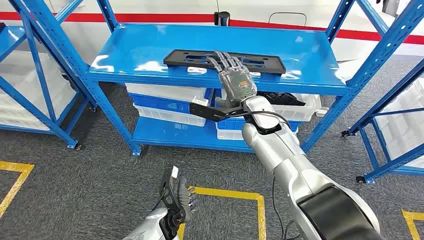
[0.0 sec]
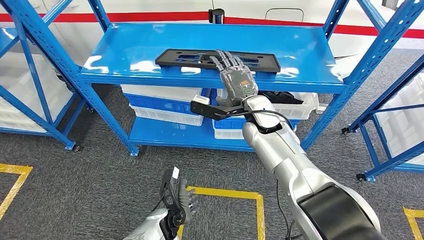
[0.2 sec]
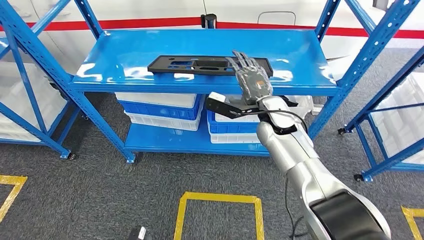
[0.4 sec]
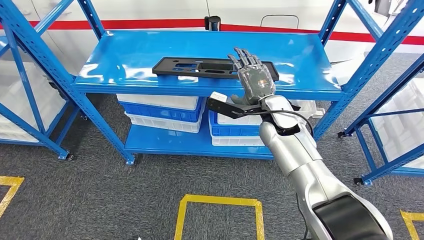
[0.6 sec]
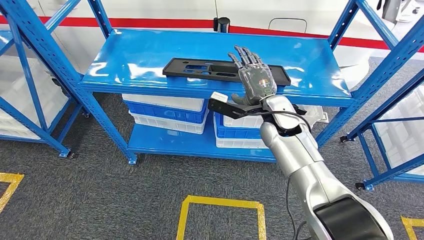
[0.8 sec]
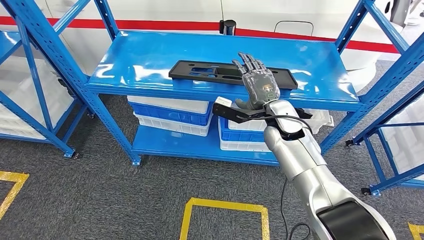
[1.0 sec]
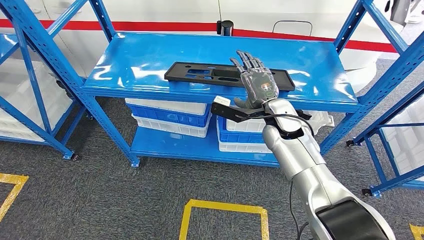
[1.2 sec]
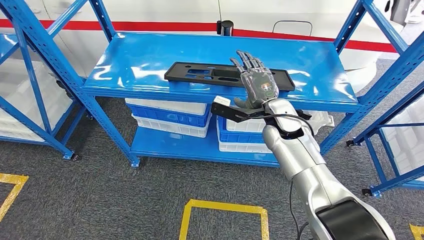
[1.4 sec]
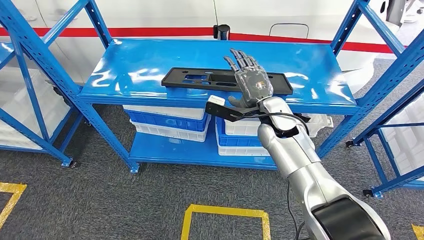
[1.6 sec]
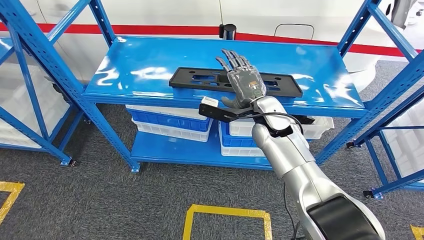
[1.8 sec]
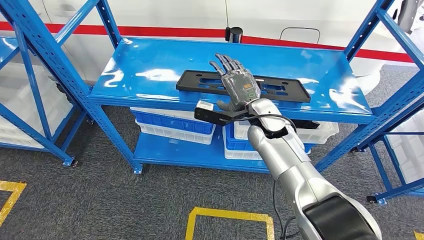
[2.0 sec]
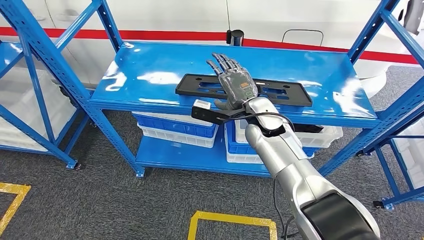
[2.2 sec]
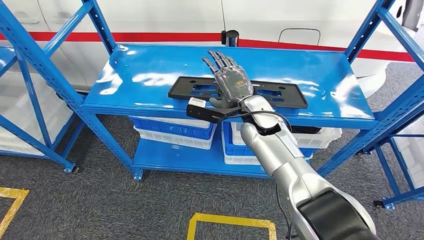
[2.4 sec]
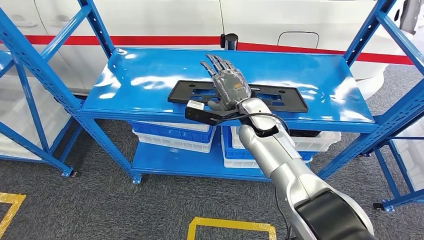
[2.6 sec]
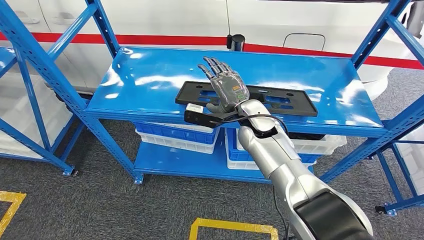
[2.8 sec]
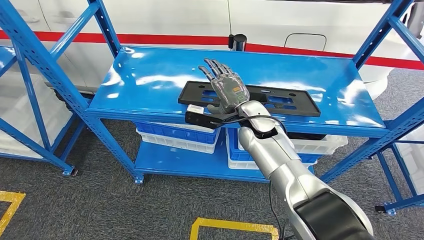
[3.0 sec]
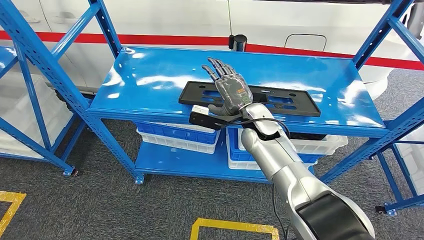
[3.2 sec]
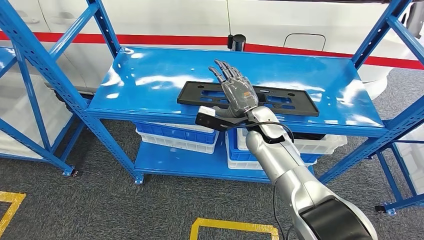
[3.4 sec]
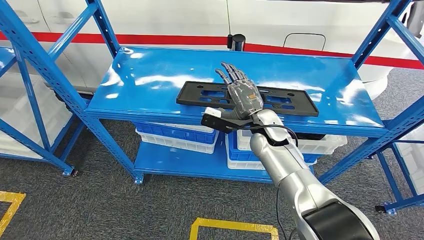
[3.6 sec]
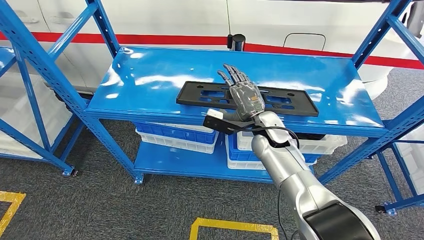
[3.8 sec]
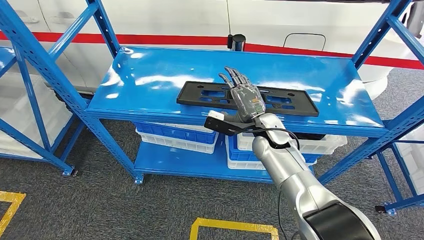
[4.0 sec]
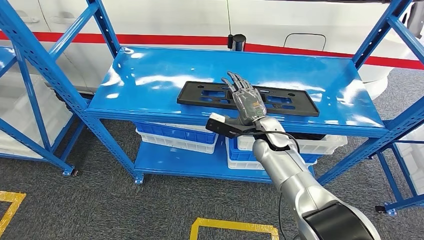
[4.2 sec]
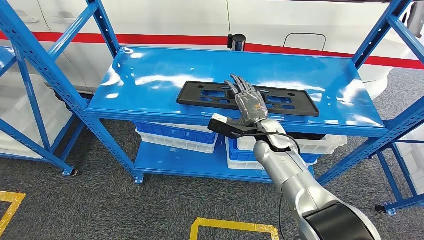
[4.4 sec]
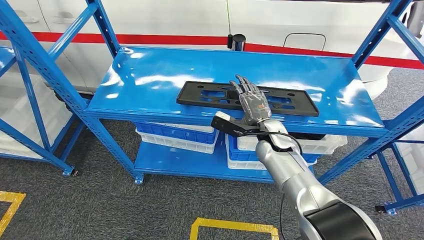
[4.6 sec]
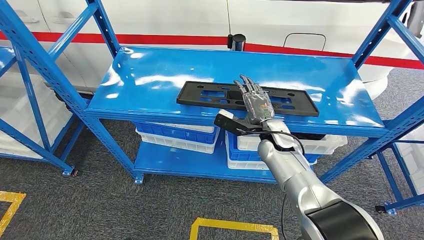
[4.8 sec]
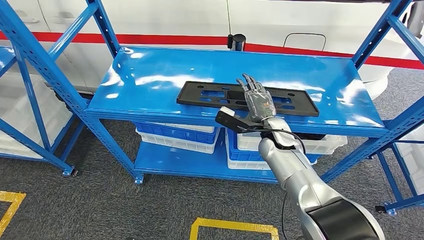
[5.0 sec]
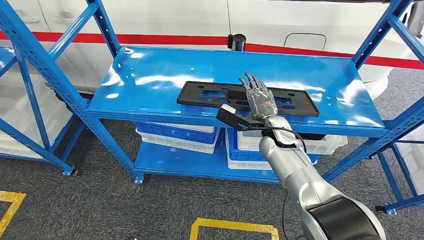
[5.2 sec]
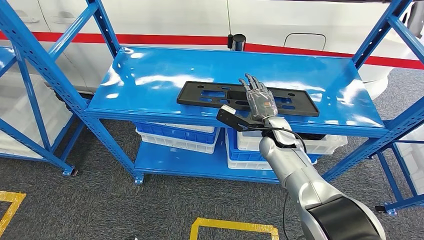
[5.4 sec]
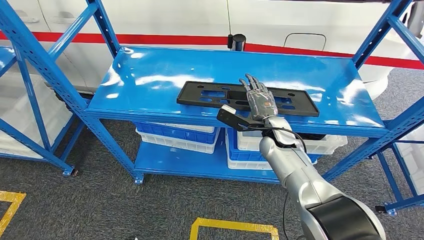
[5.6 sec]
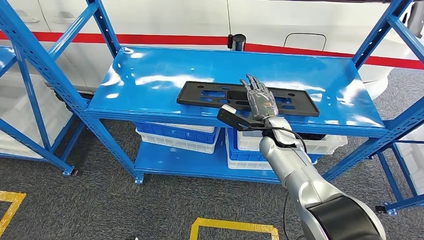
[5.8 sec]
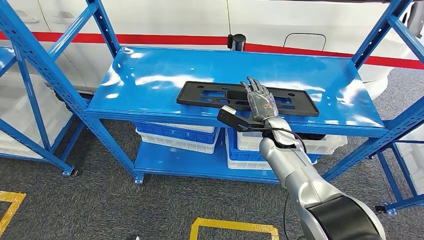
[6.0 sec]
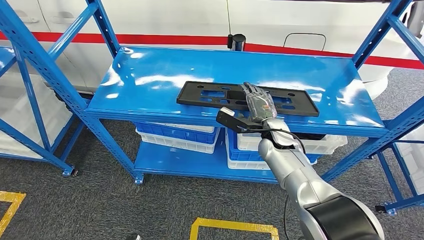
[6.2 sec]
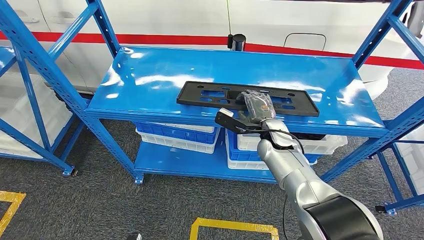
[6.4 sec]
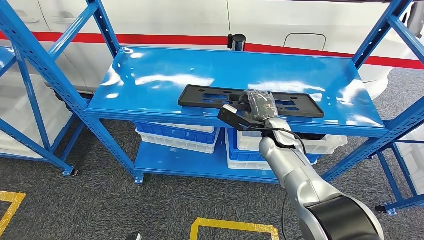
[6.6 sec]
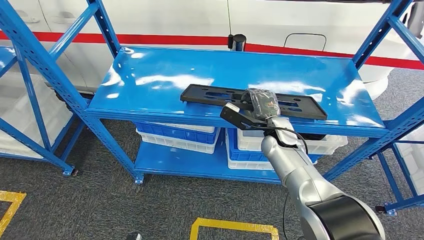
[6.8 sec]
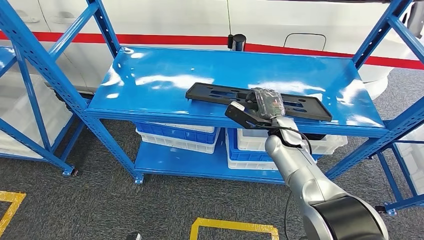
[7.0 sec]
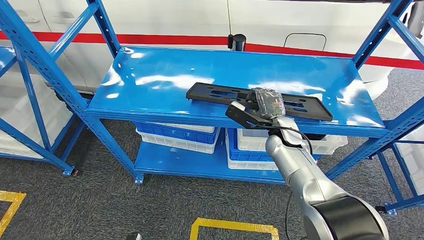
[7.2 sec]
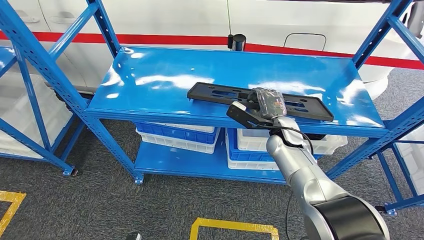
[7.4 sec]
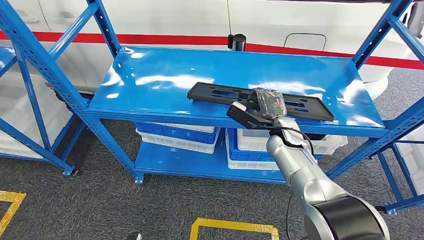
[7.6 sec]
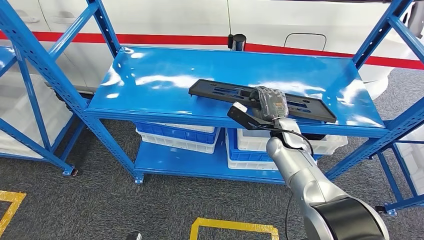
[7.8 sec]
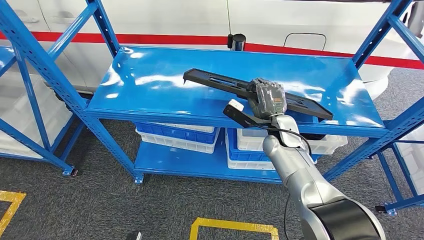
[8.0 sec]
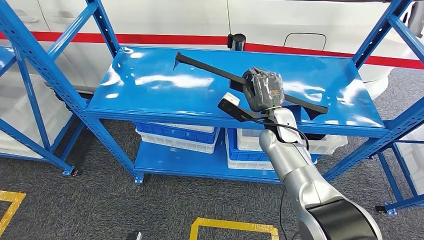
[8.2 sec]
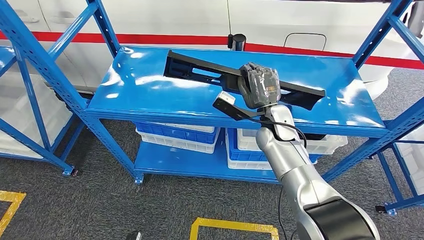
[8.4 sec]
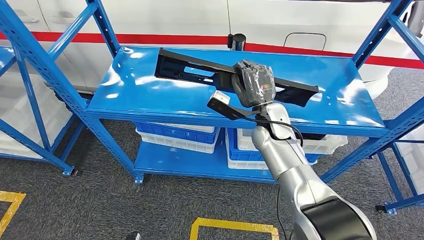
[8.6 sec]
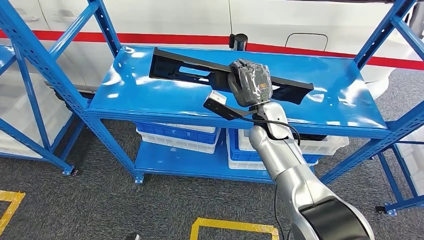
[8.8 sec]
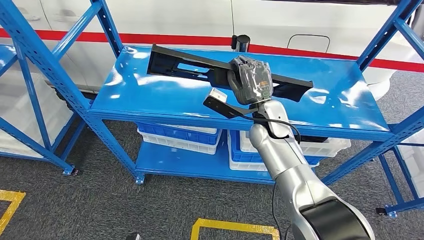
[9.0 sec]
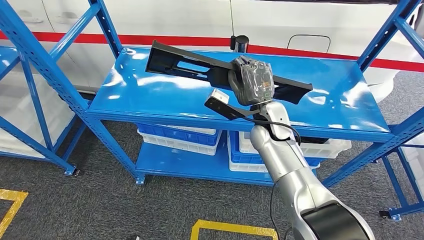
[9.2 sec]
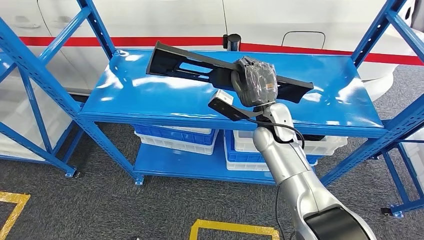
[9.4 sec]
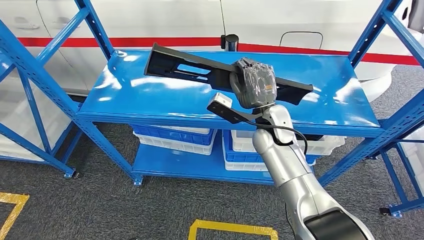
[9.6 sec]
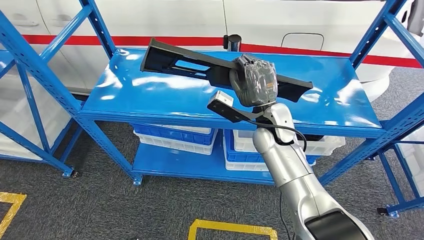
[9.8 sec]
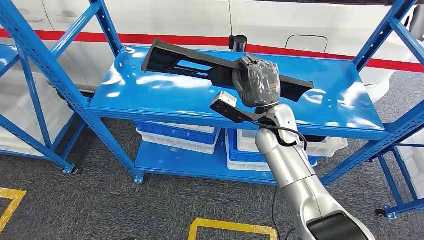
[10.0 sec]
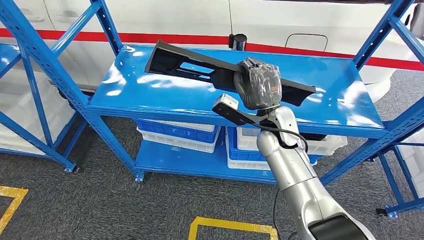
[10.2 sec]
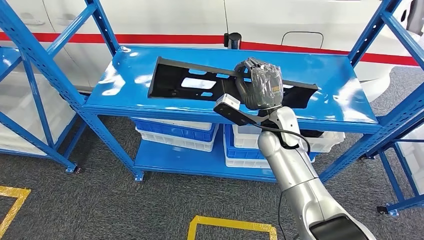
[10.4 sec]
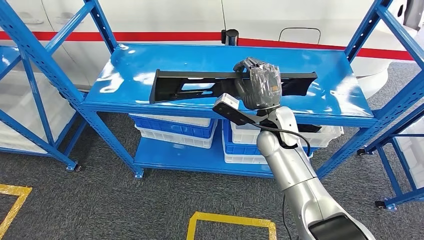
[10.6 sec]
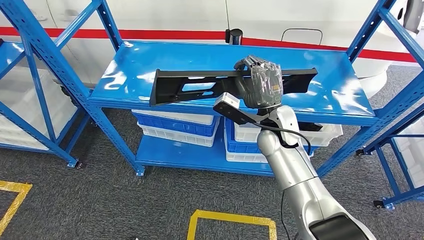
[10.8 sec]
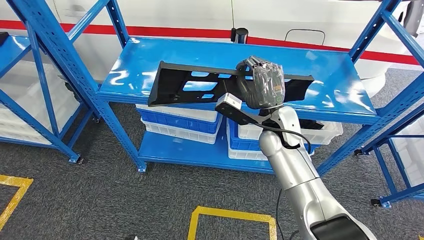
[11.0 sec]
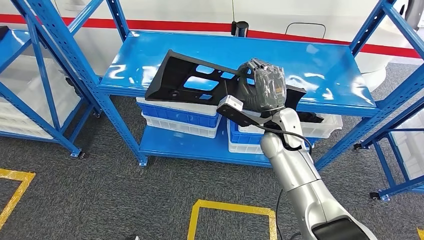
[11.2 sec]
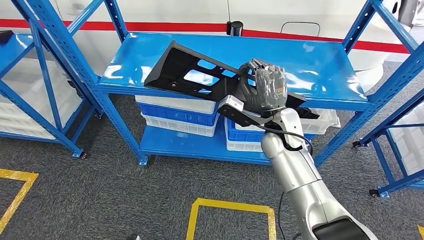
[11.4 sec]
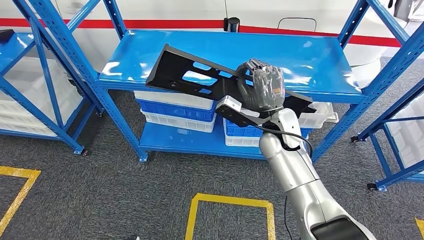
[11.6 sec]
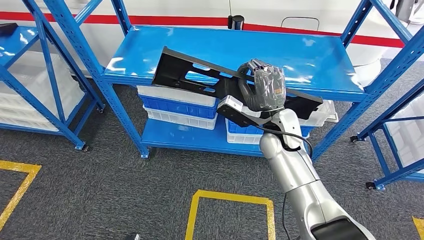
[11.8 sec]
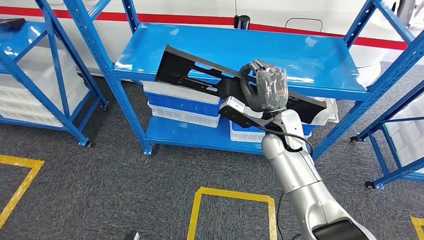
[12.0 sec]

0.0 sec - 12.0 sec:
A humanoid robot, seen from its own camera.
Step, 0.0 sec - 11.6 sec: Pick up the large material from the shelf.
3.0 sec - 4.4 sec: The right hand goes roughly 10 cm downward and to the right.
4.4 sec - 7.6 sec: The hands move only a little.

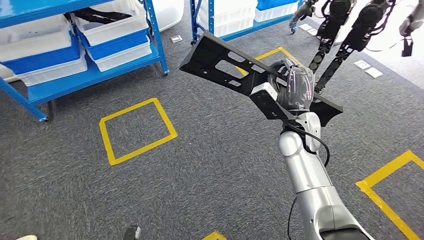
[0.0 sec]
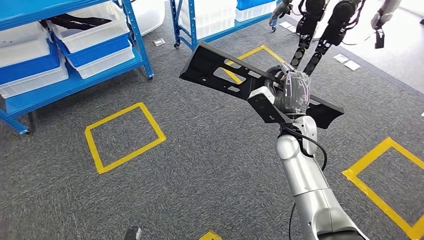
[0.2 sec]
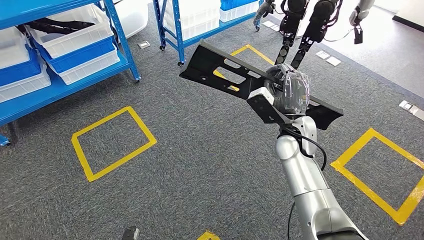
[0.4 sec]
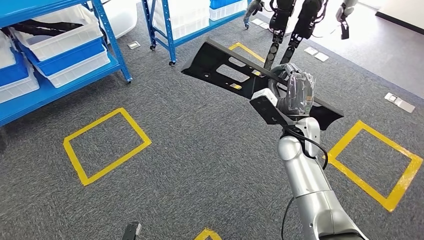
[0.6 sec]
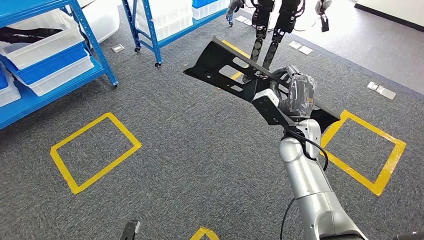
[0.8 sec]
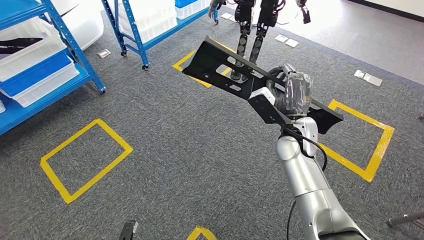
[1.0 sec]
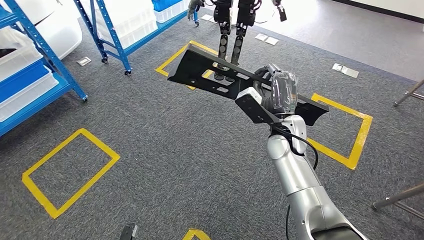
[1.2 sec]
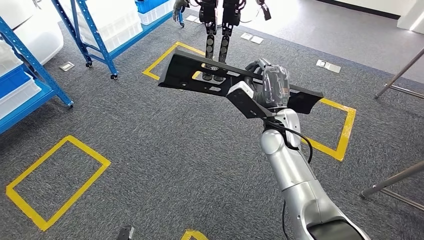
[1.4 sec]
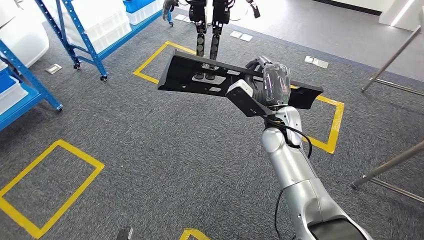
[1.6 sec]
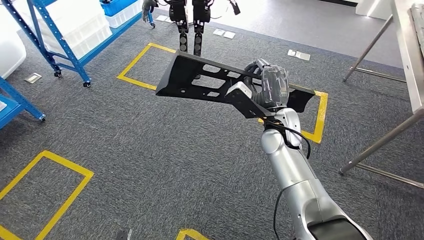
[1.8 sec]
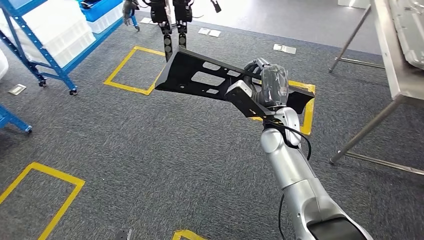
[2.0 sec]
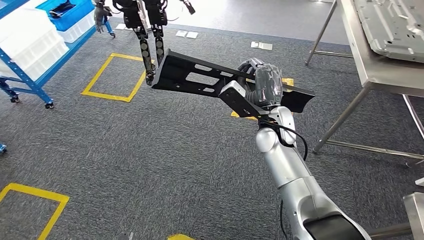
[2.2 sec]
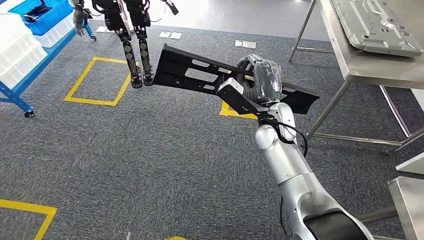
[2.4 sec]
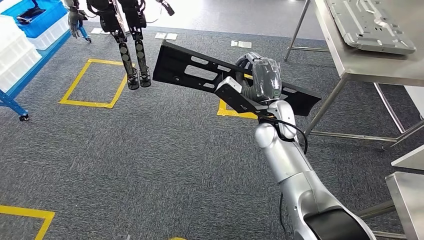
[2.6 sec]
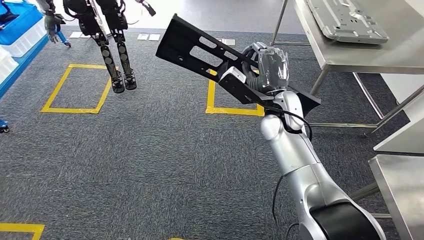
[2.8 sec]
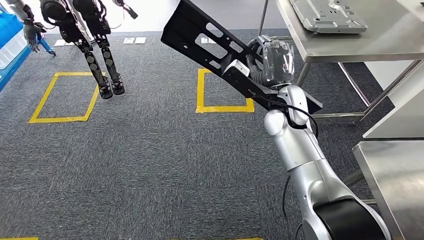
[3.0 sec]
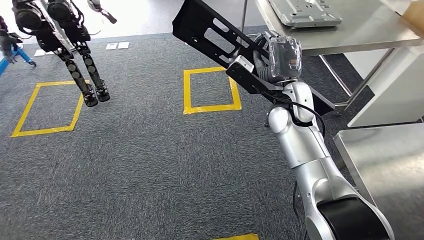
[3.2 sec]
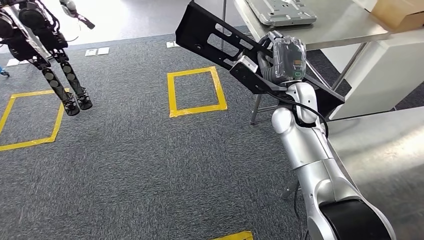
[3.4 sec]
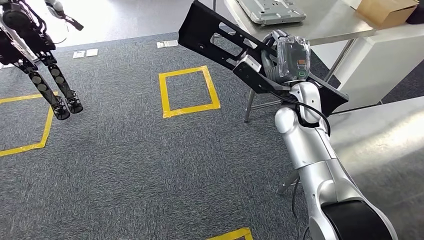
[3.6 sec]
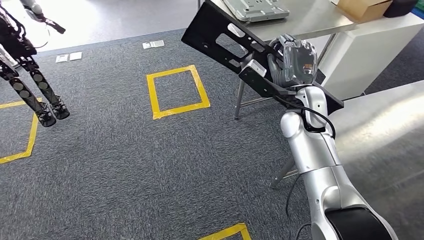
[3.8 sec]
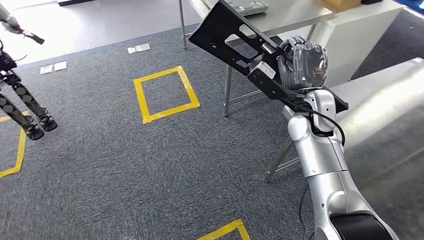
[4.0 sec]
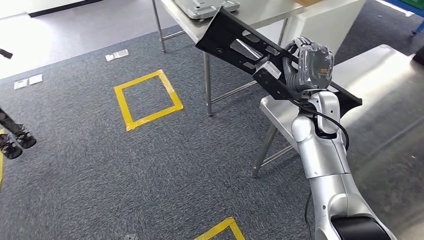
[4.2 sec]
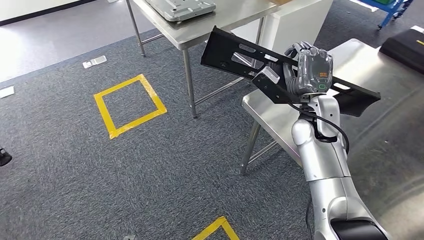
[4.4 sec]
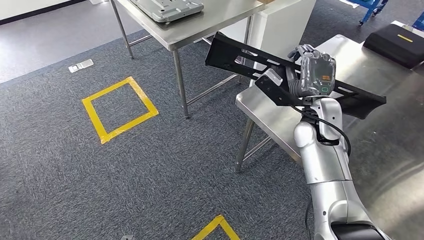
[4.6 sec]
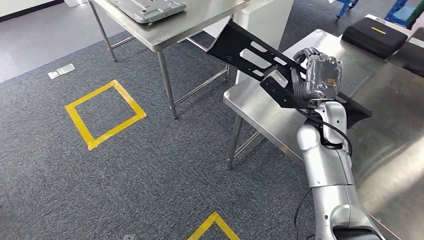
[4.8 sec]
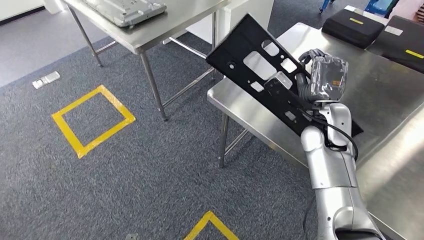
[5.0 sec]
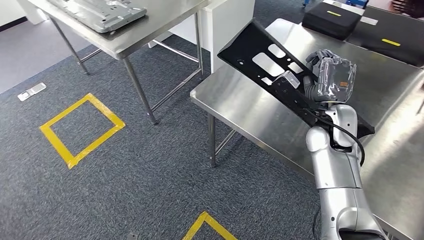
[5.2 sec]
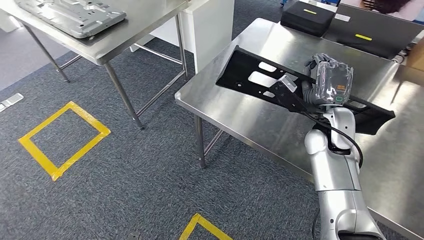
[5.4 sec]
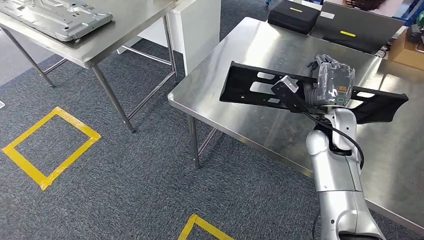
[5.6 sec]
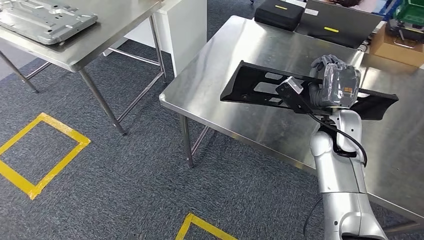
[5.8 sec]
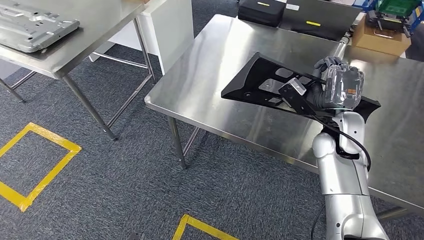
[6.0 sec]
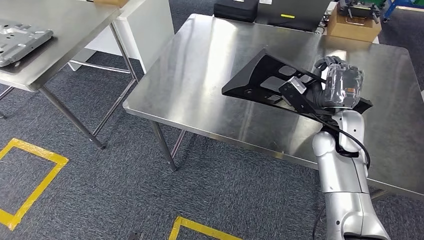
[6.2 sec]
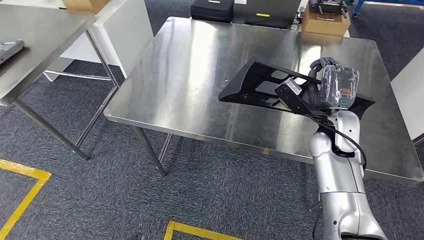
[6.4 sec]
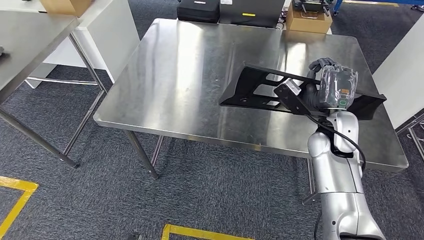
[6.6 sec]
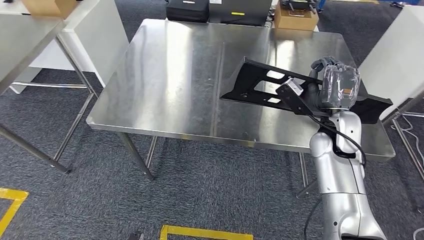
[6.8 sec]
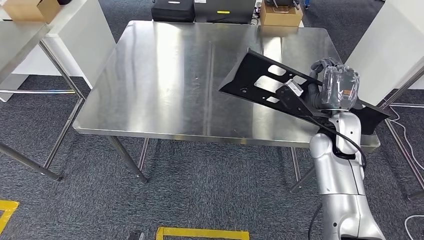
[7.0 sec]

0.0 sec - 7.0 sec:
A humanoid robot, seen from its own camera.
Step, 0.0 sec - 5.6 sec: Move the large material to the workbench.
